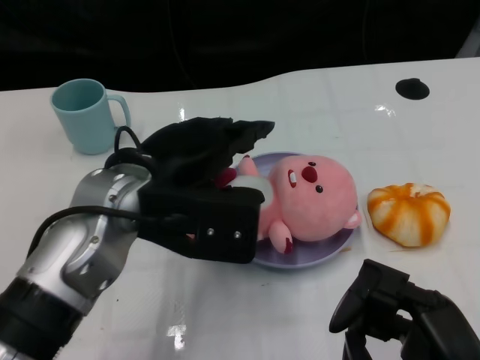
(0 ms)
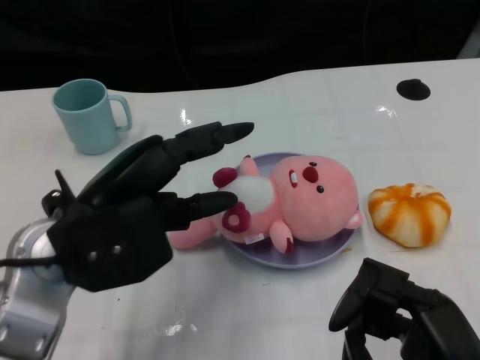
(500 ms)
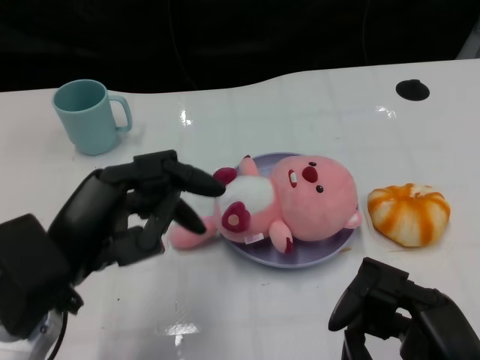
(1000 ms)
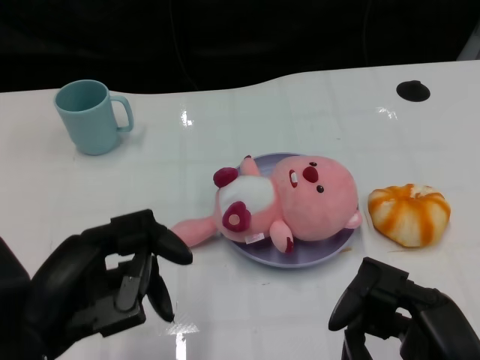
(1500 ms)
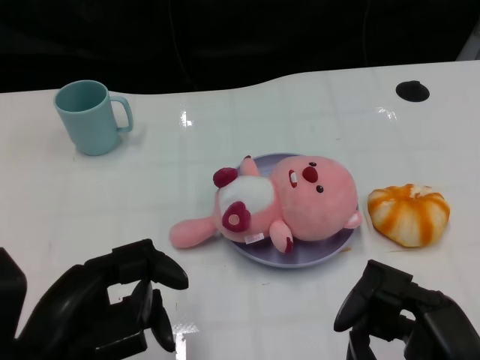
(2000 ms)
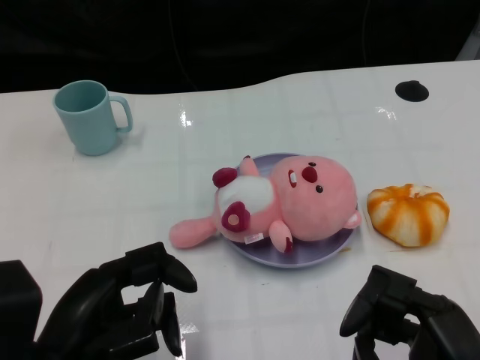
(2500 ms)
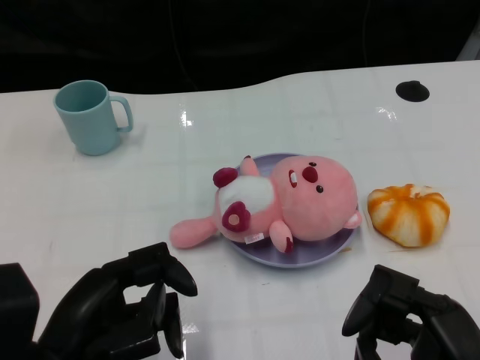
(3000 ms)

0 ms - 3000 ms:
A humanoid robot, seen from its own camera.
Task of the whole recording: Pick up the doll on one side of the plate and place it into the plate.
0 ms - 1500 ms: The left hand travels backward and to the left by roughly 15 cm.
1500 ms - 3000 ms: The hands make only small movements.

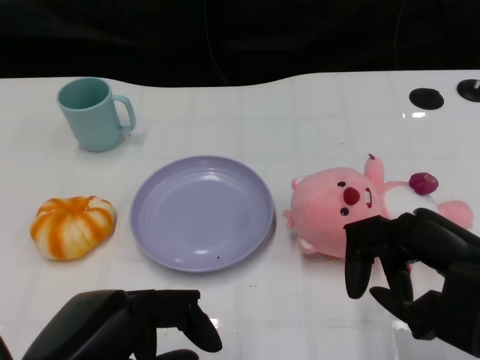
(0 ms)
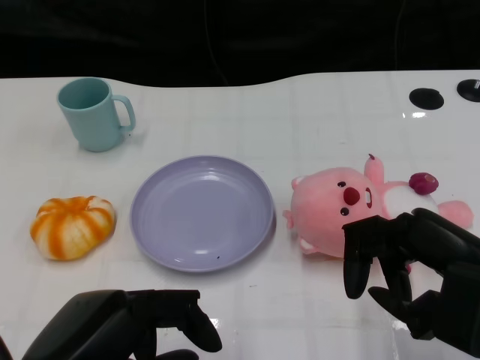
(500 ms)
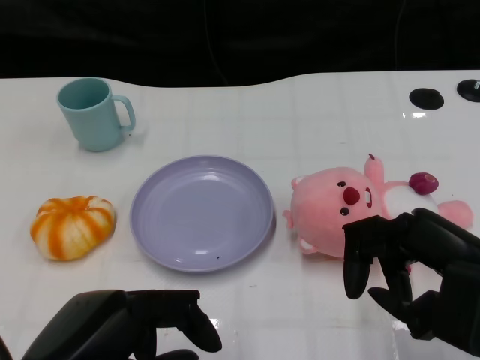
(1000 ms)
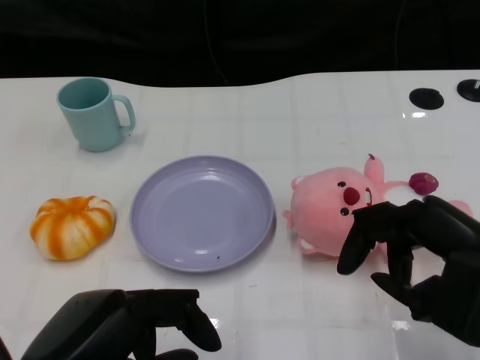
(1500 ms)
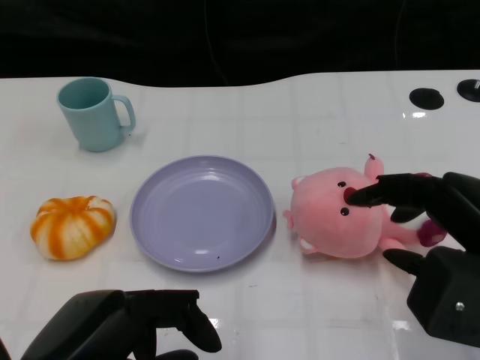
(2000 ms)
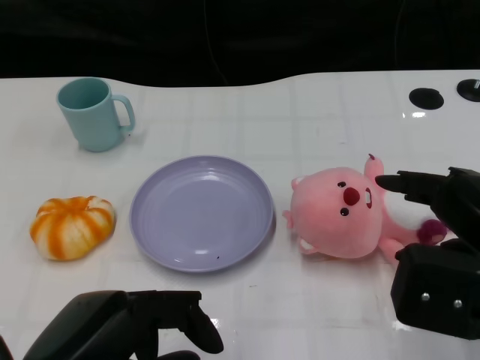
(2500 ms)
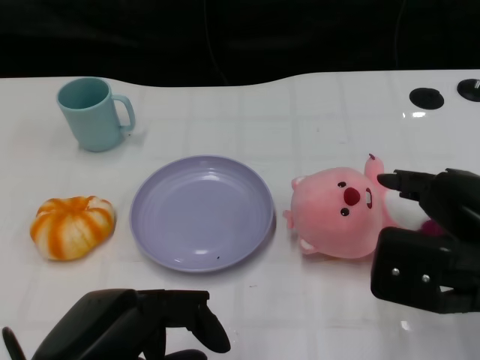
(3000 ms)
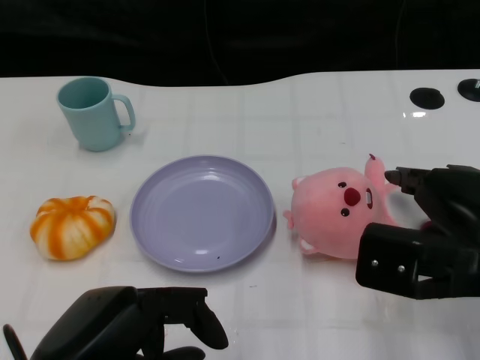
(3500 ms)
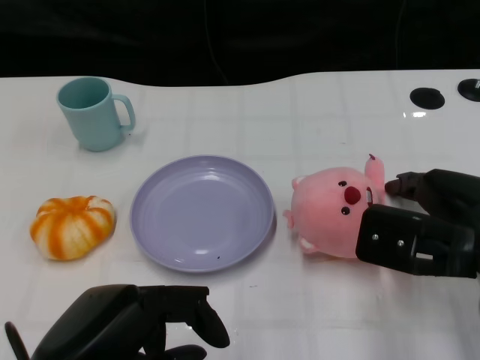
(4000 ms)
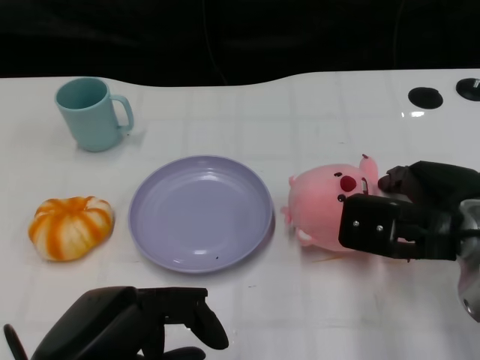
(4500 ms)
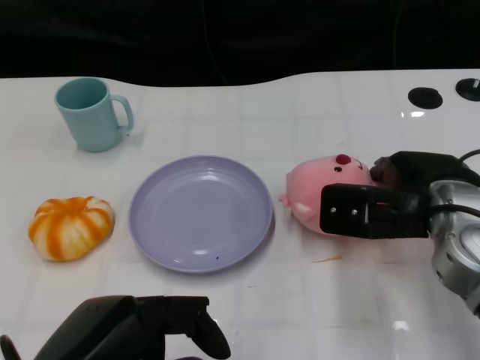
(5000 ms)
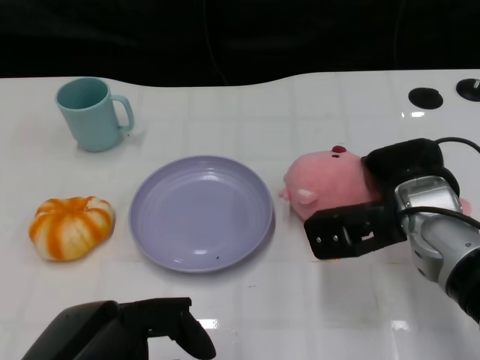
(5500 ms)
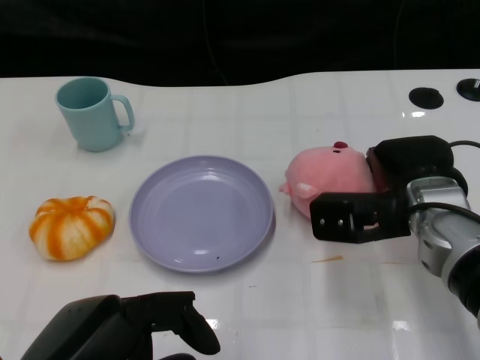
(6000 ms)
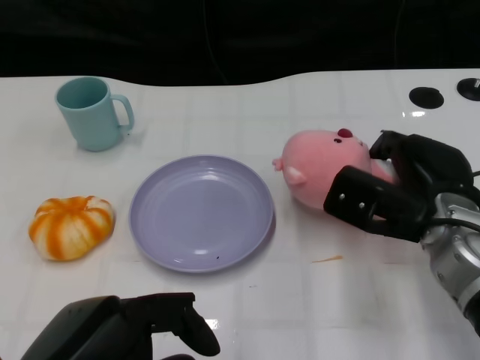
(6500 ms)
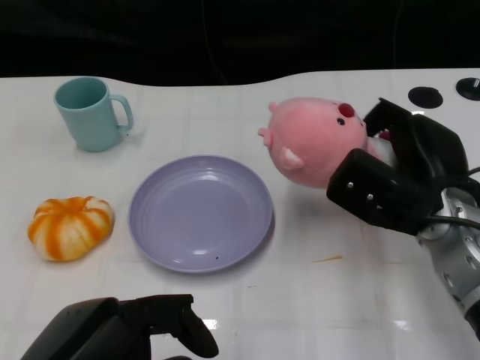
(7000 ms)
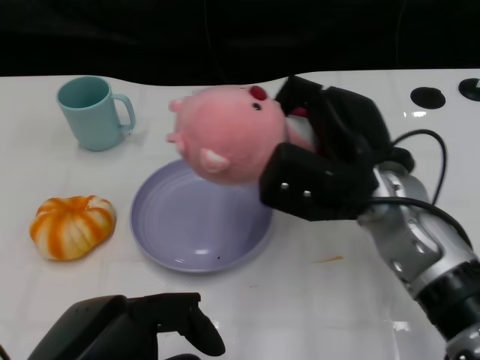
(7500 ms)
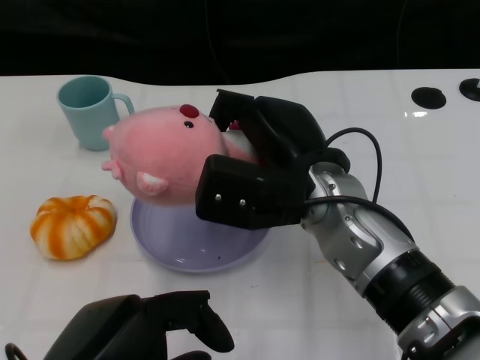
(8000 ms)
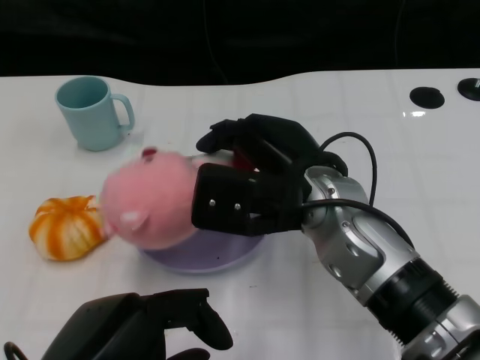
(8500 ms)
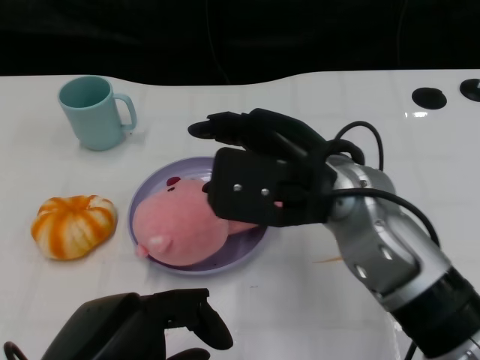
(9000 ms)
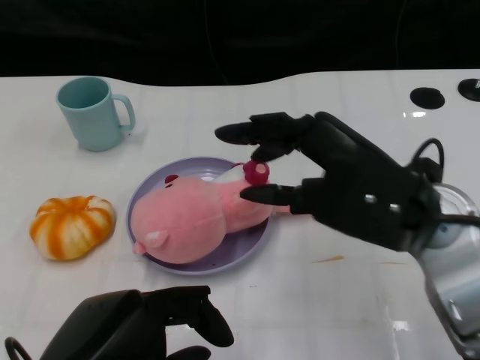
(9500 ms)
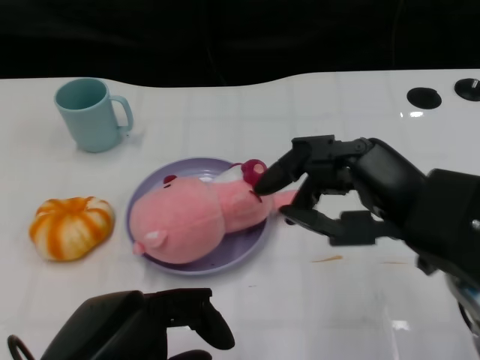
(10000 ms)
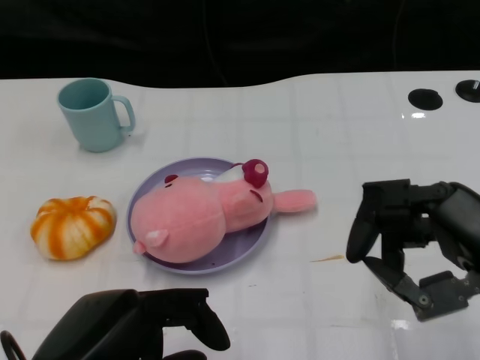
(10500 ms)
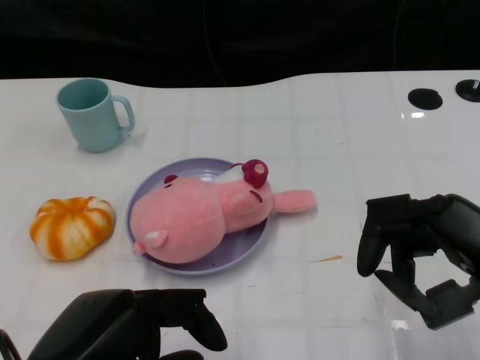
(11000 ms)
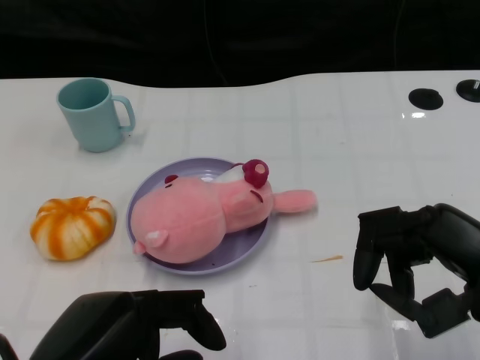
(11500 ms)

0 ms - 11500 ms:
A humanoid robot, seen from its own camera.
Task of the whole recording: Pick up the doll on the other side of the plate and place it into the plate.
Step, 1500 ms - 7000 ms: Grasp the pink doll with the right gripper.
Step, 7500 ms - 9000 ms: Place the pink doll into the plate with the right gripper.
2000 ms - 4000 ms: The right hand is displaced forward by some 5 cm.
4000 ms - 6000 ms: The right hand goes approximately 5 cm forward.
6000 ms - 7500 ms: The right hand ends up some 5 cm from where it was.
7500 ms - 9500 ms: The right hand shifts some 10 cm backward and upward, and reaches approximately 5 cm to the left, then returns.
9500 ms - 11500 ms: The right hand is displaced to the right and backward by roughly 10 cm.

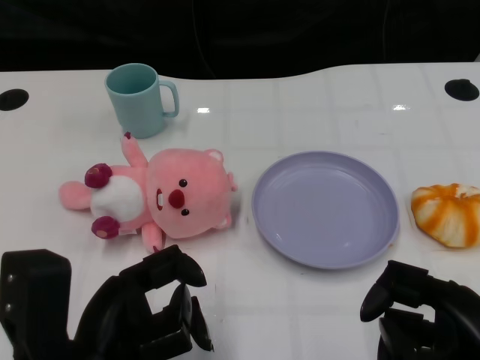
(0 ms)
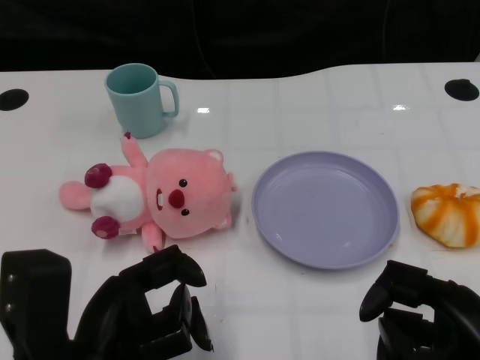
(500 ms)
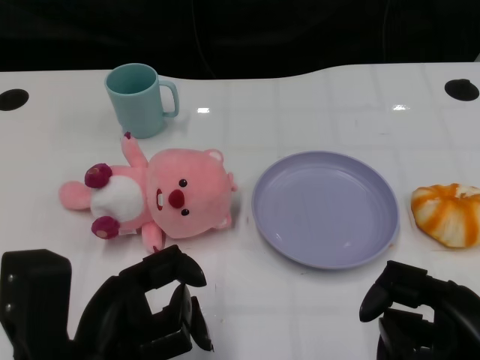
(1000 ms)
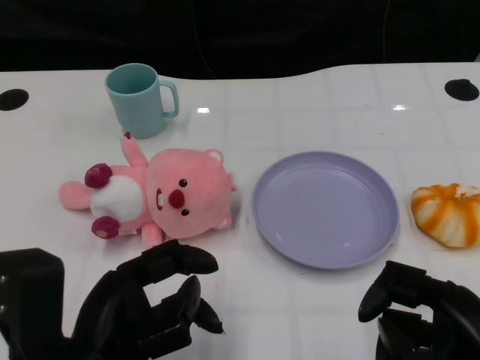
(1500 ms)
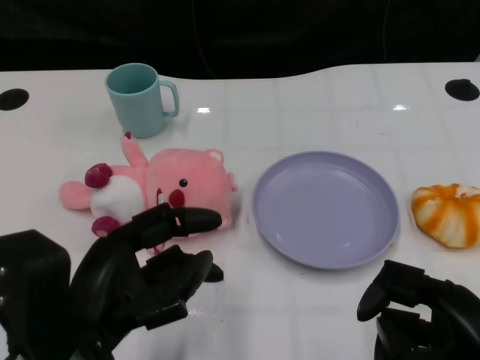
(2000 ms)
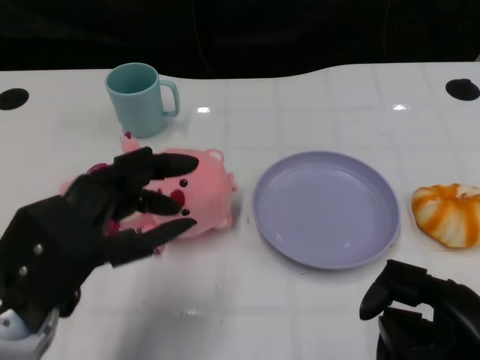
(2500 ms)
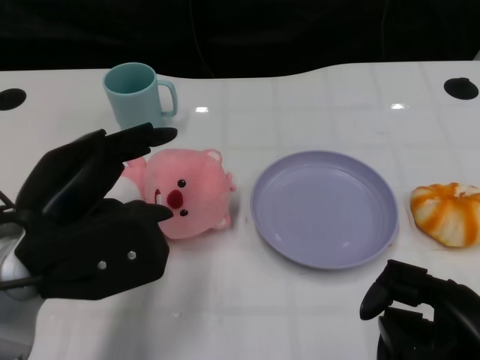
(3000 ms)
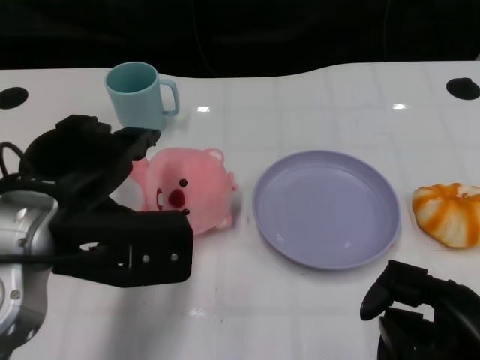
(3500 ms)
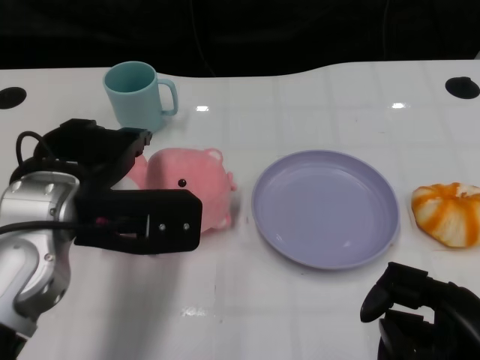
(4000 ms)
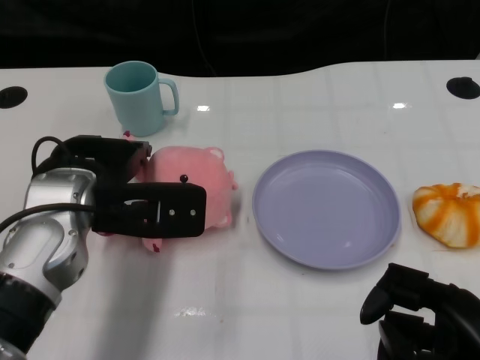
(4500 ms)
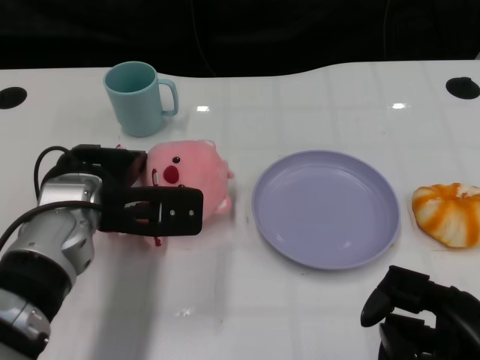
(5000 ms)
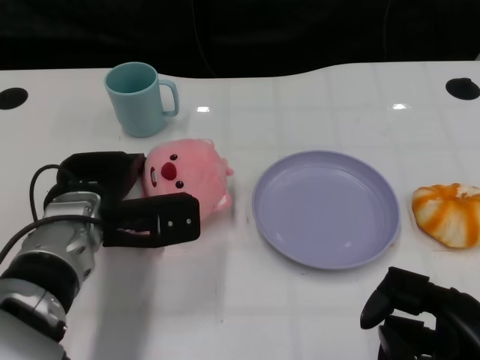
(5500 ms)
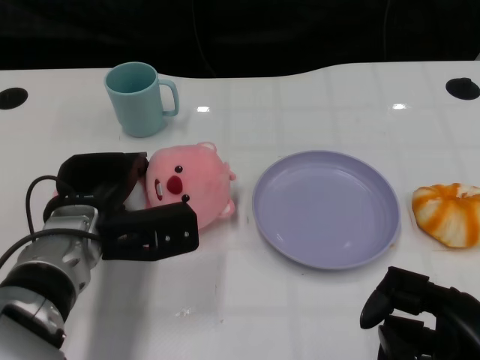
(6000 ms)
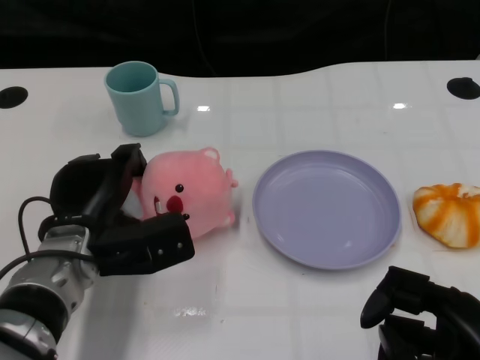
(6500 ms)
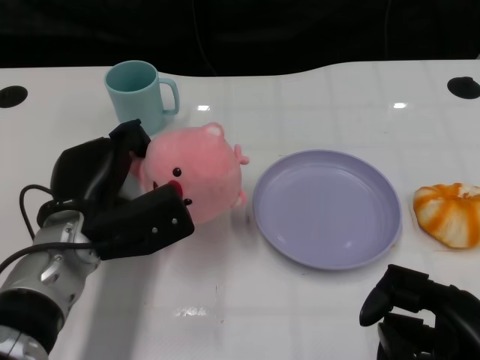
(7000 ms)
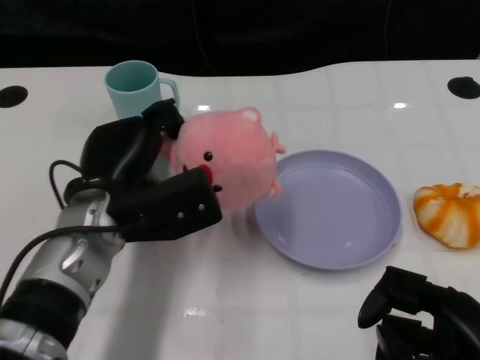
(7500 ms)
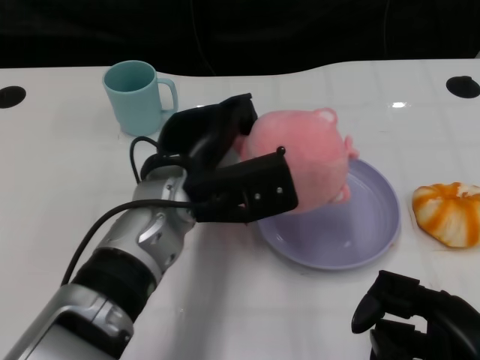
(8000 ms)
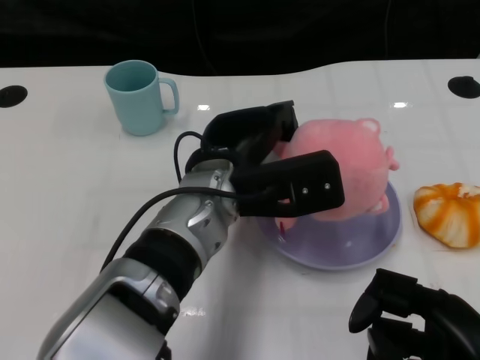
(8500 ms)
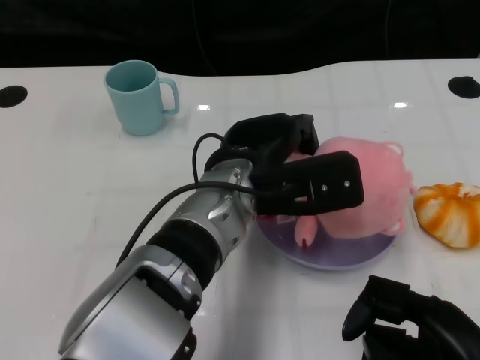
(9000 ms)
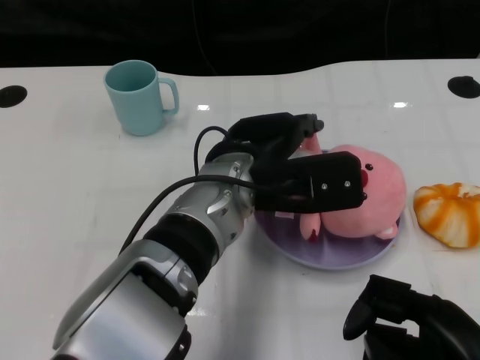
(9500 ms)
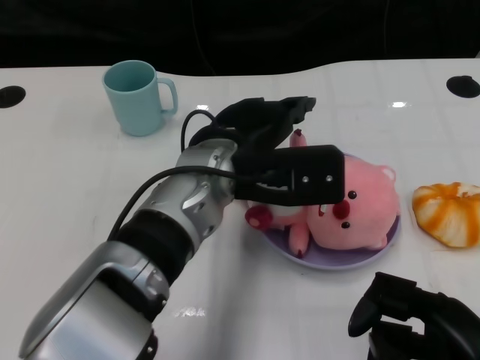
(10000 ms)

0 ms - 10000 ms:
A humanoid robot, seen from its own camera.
Task of the whole recording: Pick up the doll on one side of the plate and place it into the plate.
Step, 1500 ms - 6500 ms: Grasp the pink doll with the left gripper.
2000 ms - 4000 ms: The left hand heads forward, covering roughly 10 cm.
4000 ms - 6000 ms: The left hand heads downward, covering about 10 cm.
6000 ms - 8000 ms: The left hand is displaced to the right and upward by approximately 10 cm.
8000 ms - 10000 ms: The left hand ends up roughly 5 cm from where it was.

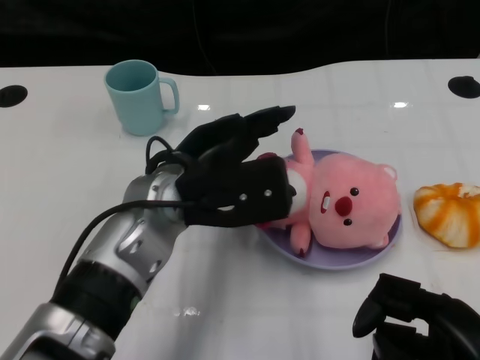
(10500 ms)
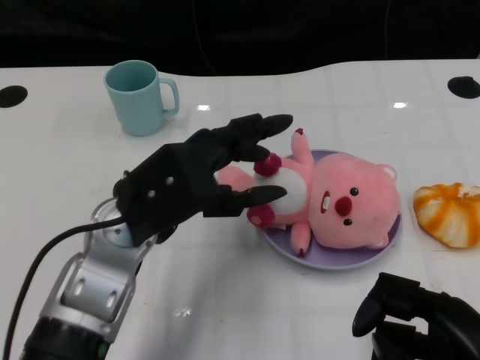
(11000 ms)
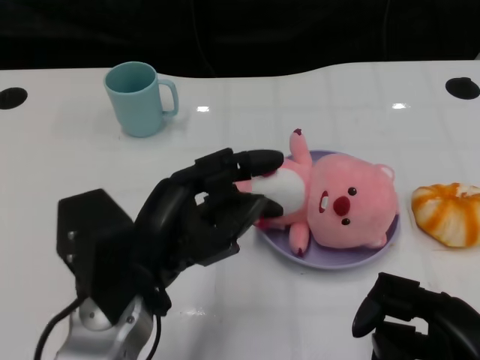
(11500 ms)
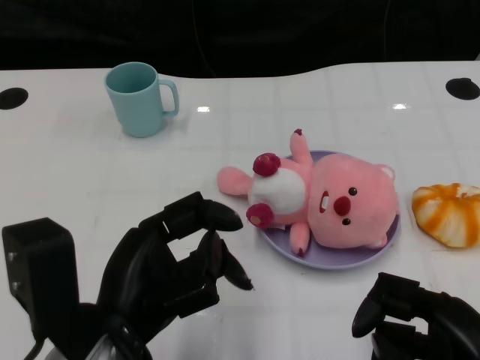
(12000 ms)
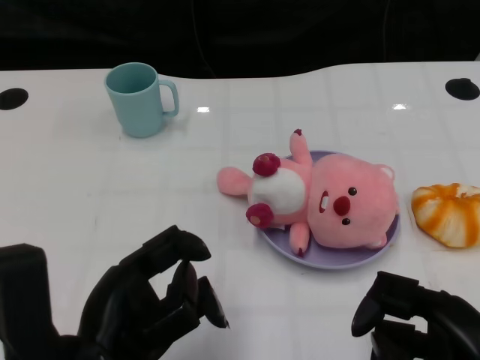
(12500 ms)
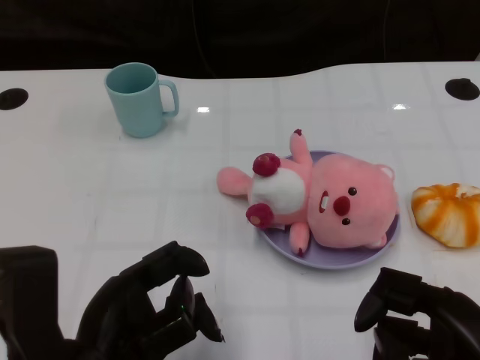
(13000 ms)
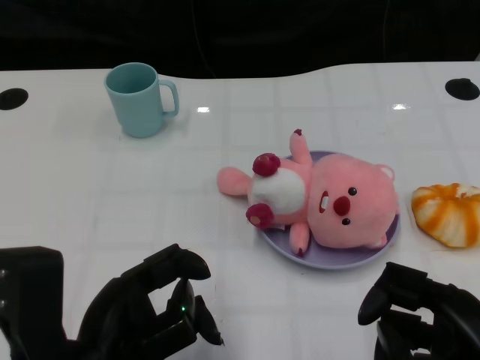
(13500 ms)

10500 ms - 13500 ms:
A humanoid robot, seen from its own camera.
Task of the whole recording: Pick up the doll on one side of the plate and place it into the plate.
10500 ms - 12000 ms: The left hand heads backward and to the left, covering approximately 15 cm.
12000 ms - 13500 ms: The hands stay close to where they were, moving slightly.
